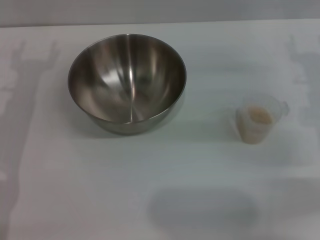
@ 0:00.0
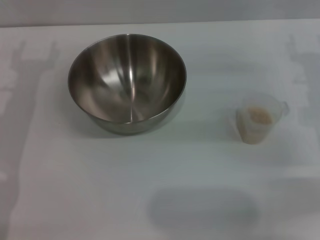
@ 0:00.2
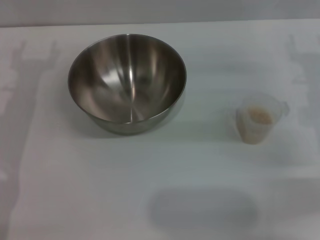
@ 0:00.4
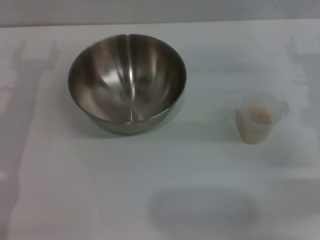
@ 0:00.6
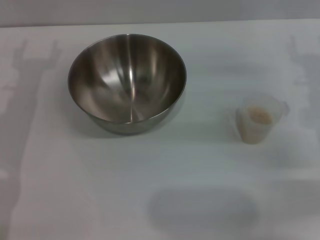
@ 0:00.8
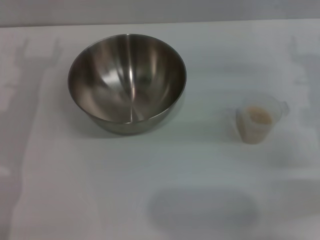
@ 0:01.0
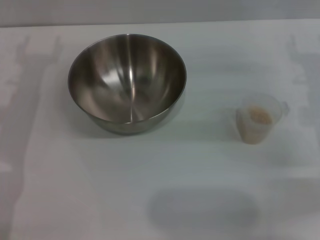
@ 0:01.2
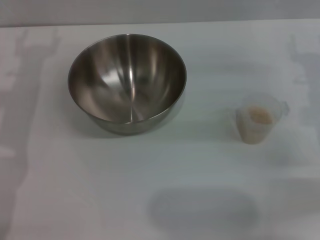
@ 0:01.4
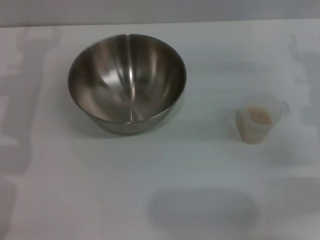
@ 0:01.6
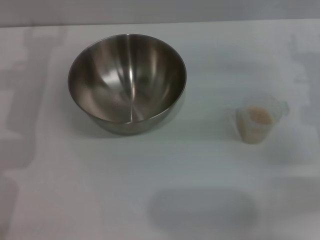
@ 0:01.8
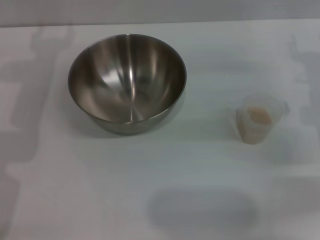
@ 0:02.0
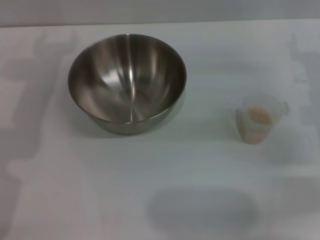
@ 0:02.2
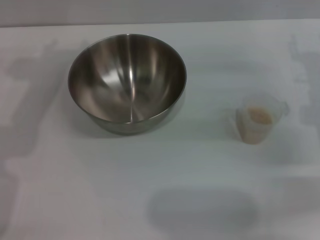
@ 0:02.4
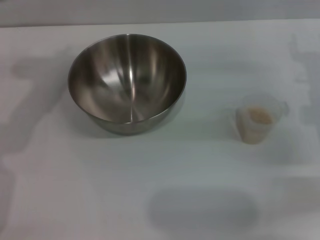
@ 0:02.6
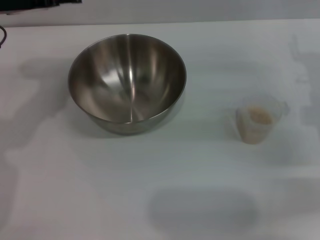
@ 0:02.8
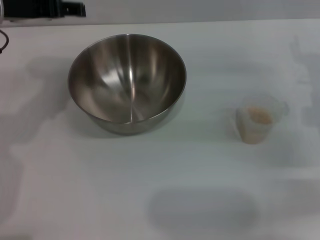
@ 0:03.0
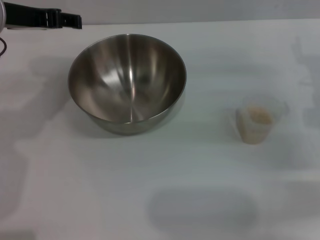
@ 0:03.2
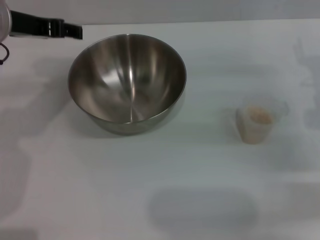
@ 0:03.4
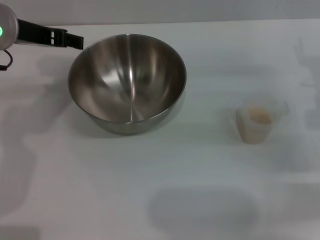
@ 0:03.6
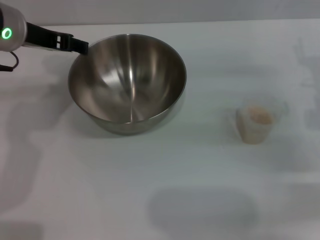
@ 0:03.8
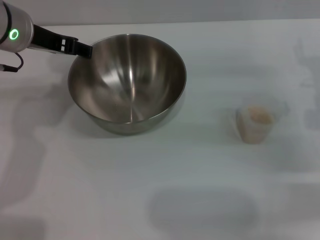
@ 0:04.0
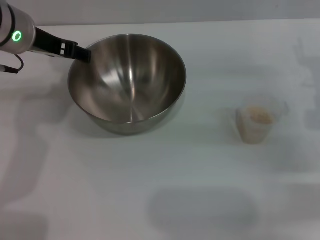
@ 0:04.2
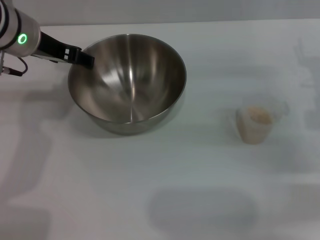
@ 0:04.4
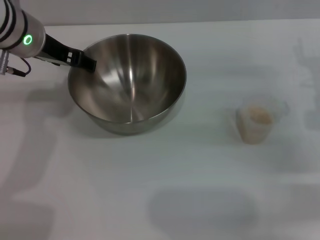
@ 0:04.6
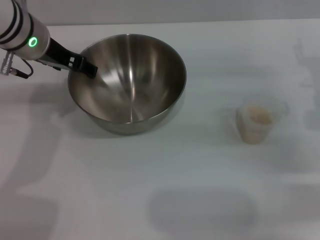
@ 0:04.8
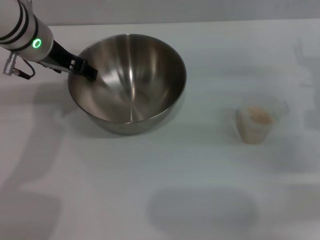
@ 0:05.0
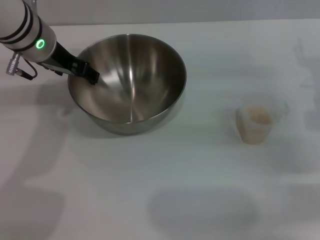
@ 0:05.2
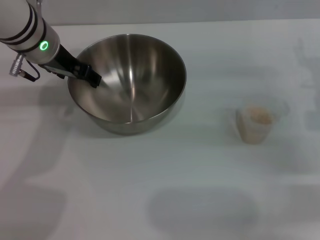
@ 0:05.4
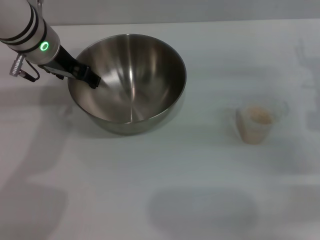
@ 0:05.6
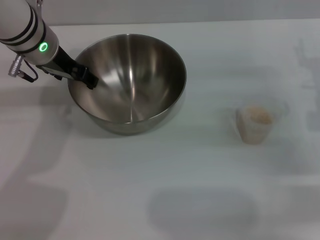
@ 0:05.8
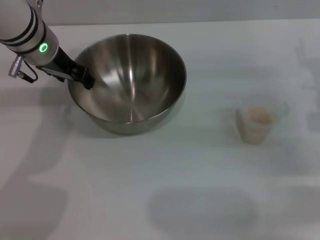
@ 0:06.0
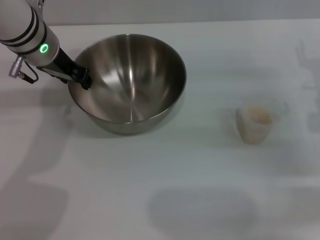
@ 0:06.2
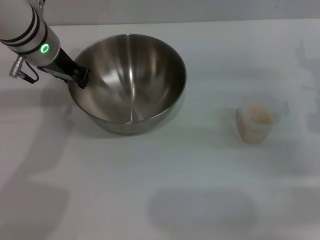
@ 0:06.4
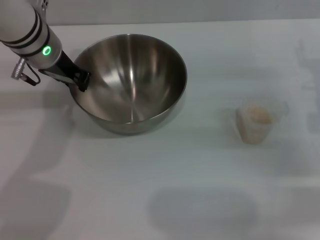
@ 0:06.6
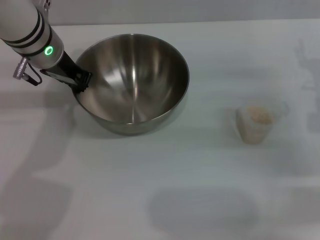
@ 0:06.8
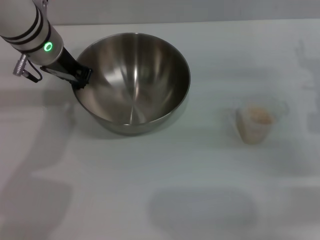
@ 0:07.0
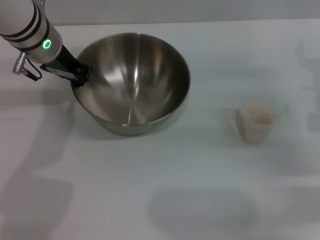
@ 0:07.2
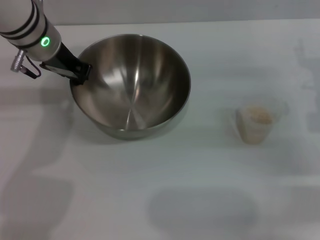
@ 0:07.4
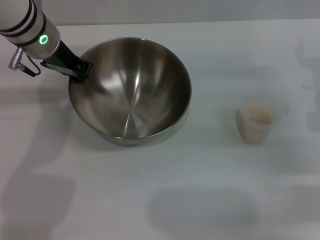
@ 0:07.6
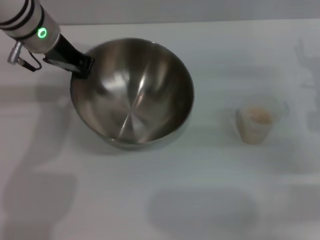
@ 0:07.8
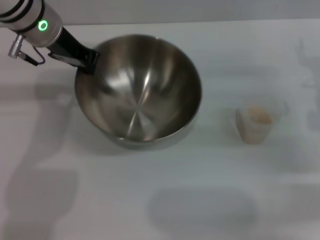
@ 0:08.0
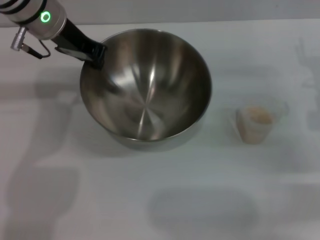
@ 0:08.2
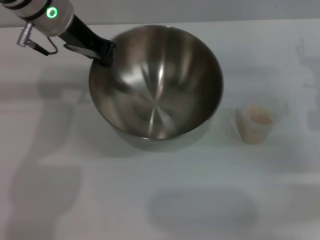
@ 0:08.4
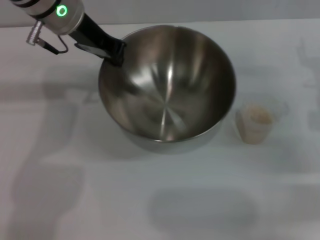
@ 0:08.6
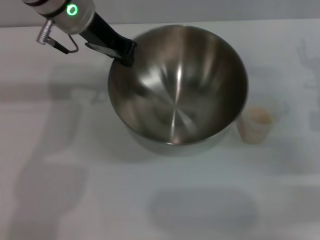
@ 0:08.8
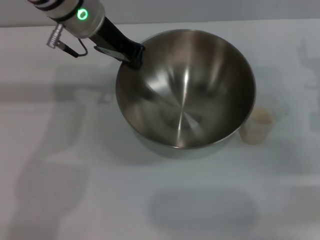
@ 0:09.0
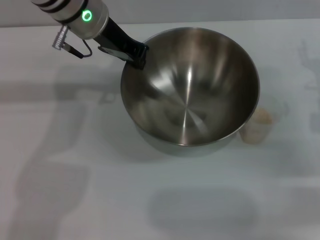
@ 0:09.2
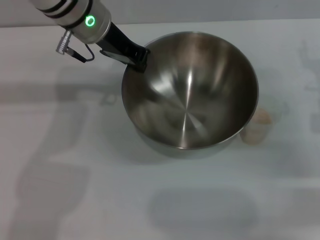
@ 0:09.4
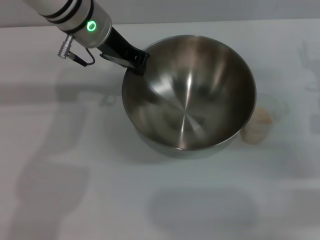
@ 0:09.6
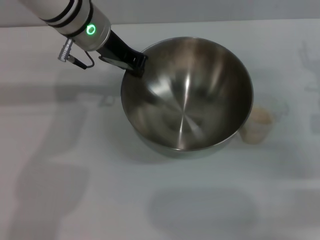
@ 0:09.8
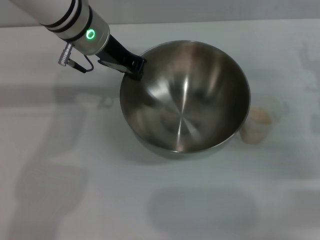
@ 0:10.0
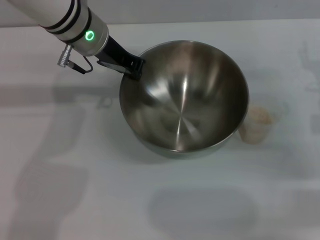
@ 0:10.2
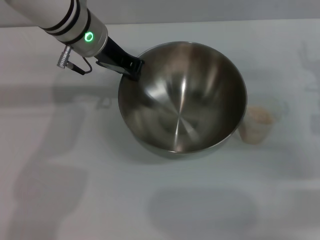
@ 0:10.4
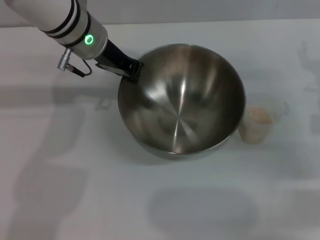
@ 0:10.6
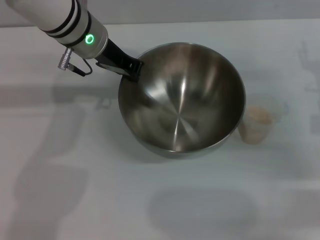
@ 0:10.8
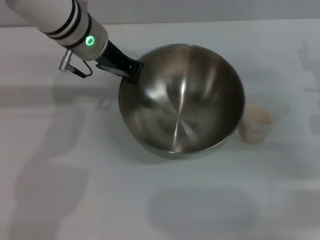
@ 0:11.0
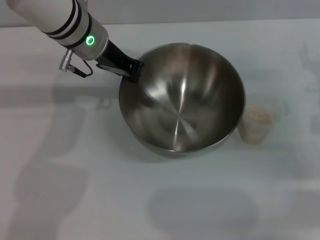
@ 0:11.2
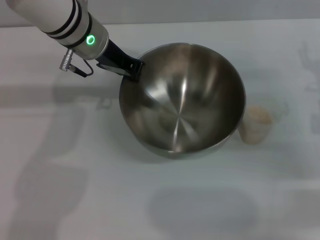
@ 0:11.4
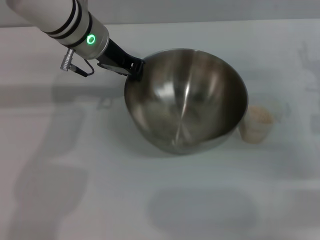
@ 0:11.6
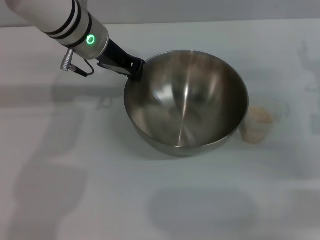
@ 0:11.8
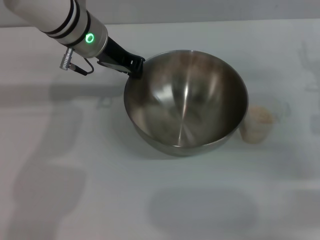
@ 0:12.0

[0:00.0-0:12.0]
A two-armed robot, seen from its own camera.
Task of the whole recording: Place the bowl in the middle of the table with one hand and pour the rice from the grain cup into it with the other hand.
Step, 0:00.0 to 0:08.0: Pick up the bowl with the left gripper.
0:01.6 to 0:03.0: The left gripper travels upward by roughly 10 cm.
0:03.0 to 0:04.4: The left gripper moves roughly 5 cm.
0:04.4 to 0:06.0: The grippers move only a little.
0:06.0 to 0:07.6: The left gripper closes its fingers.
0:07.6 to 0:09.0: The left gripper heads to the right, covering approximately 5 cm.
0:09.0 to 0:10.4: There are only small adjustments of the grippers.
0:10.4 to 0:12.0: The two grippers keep their place.

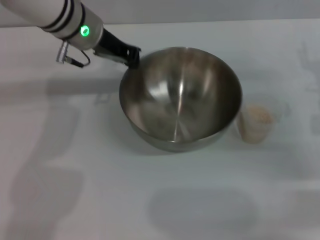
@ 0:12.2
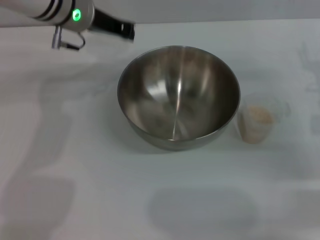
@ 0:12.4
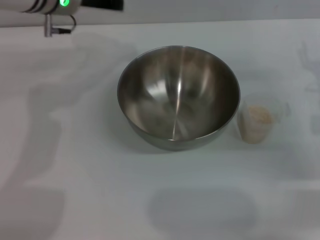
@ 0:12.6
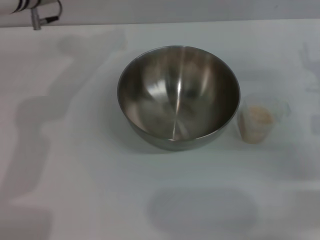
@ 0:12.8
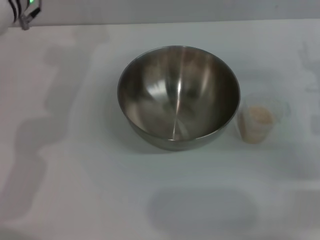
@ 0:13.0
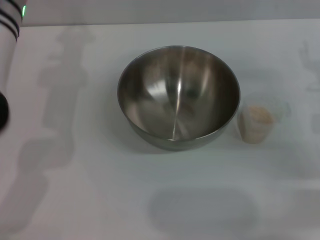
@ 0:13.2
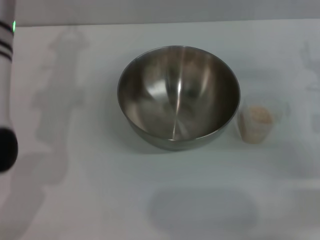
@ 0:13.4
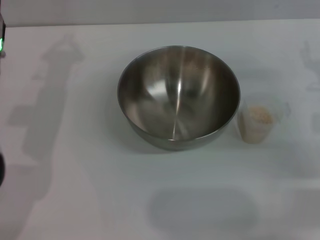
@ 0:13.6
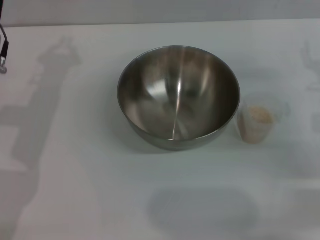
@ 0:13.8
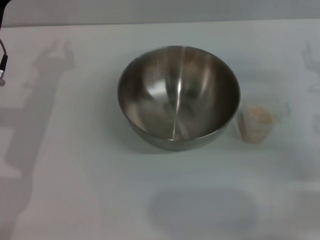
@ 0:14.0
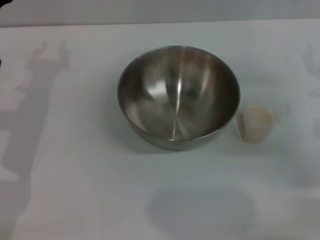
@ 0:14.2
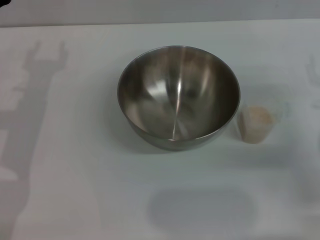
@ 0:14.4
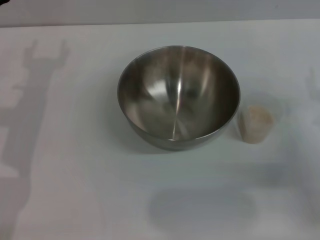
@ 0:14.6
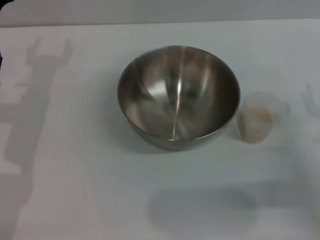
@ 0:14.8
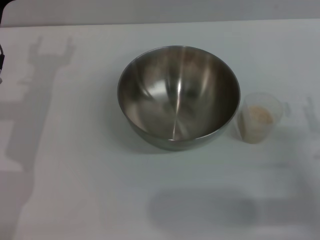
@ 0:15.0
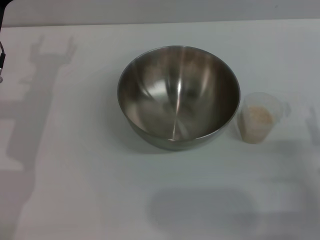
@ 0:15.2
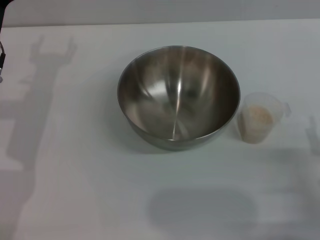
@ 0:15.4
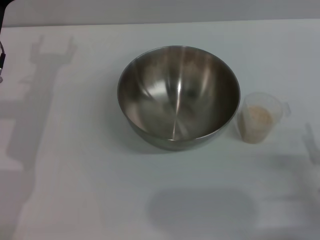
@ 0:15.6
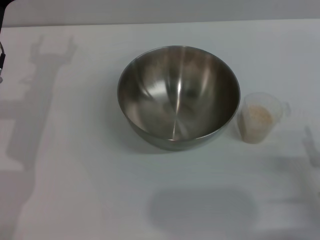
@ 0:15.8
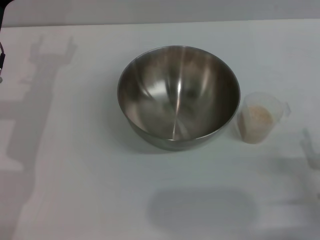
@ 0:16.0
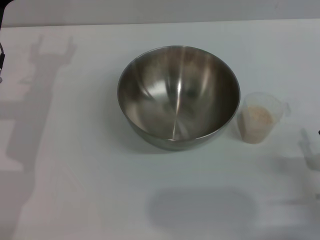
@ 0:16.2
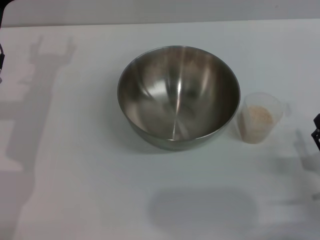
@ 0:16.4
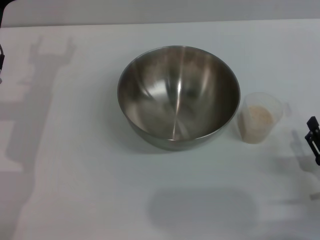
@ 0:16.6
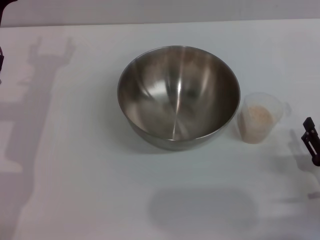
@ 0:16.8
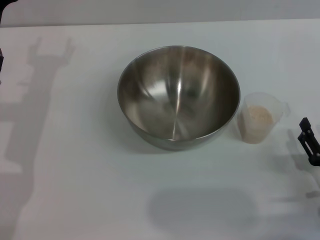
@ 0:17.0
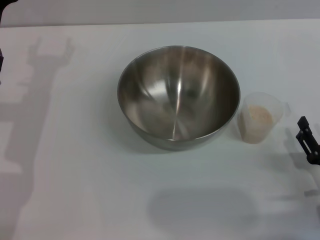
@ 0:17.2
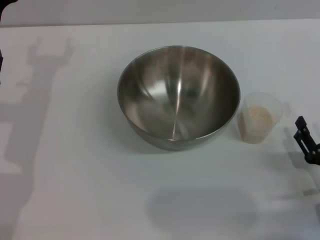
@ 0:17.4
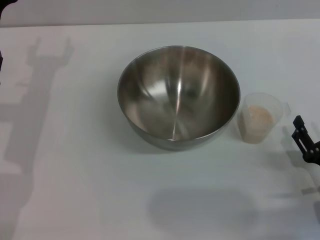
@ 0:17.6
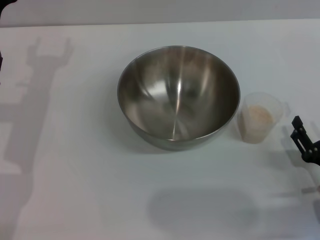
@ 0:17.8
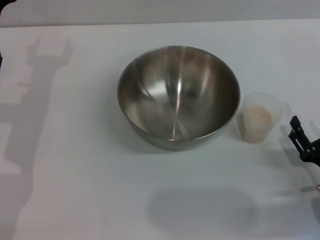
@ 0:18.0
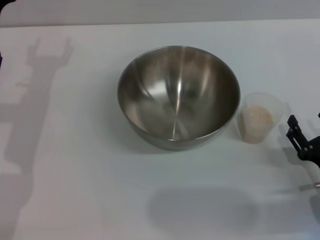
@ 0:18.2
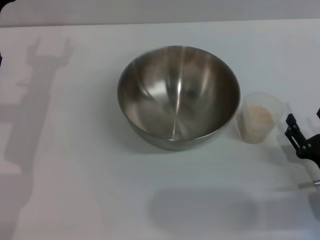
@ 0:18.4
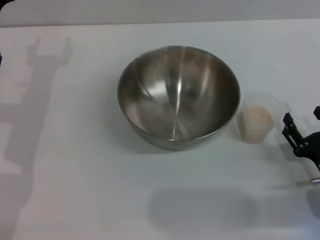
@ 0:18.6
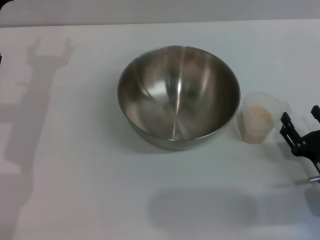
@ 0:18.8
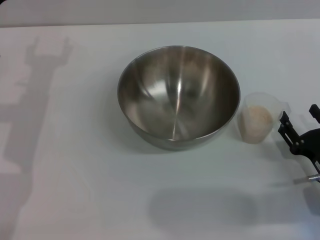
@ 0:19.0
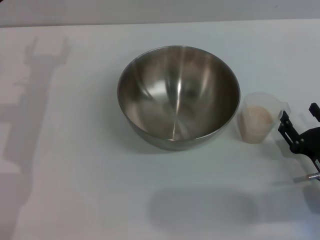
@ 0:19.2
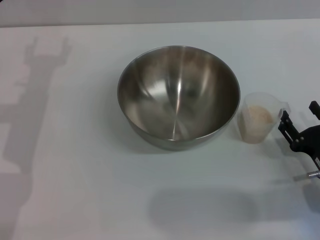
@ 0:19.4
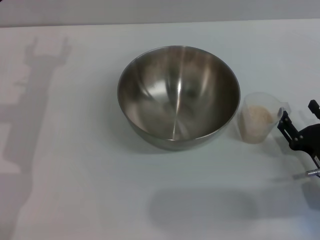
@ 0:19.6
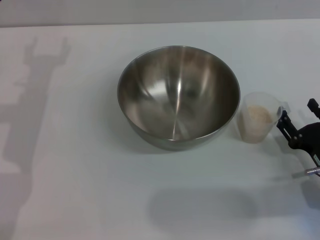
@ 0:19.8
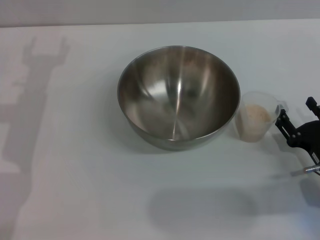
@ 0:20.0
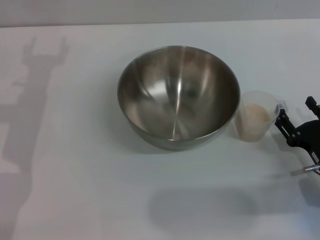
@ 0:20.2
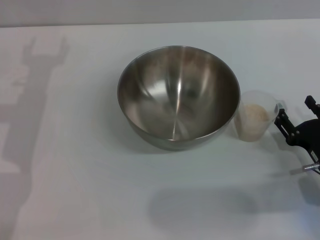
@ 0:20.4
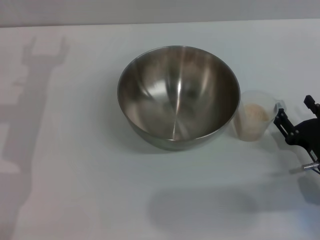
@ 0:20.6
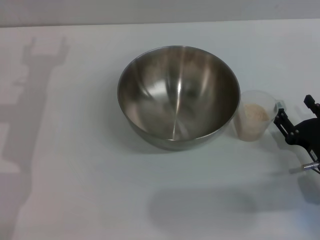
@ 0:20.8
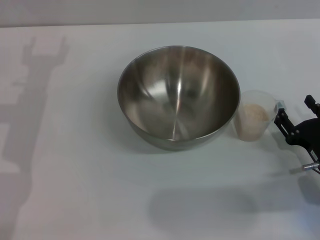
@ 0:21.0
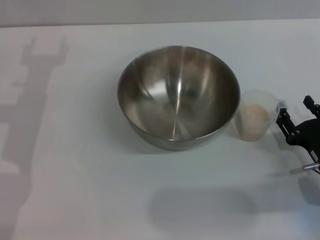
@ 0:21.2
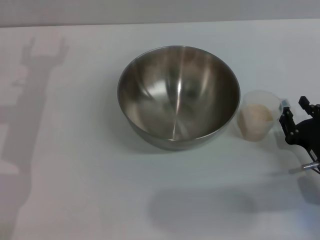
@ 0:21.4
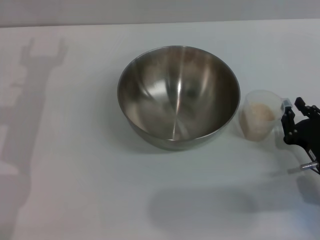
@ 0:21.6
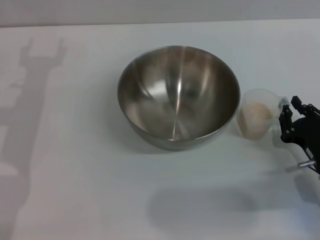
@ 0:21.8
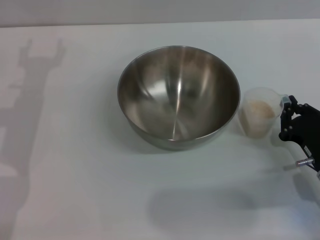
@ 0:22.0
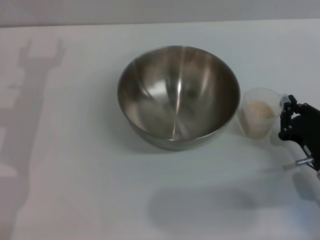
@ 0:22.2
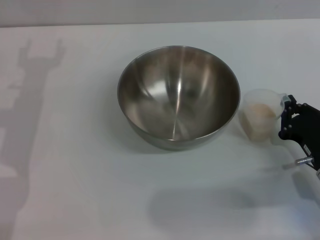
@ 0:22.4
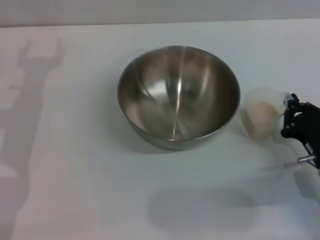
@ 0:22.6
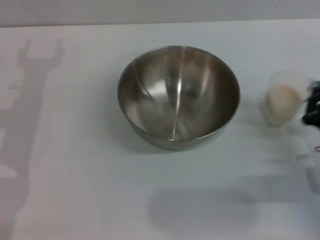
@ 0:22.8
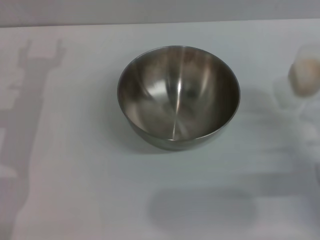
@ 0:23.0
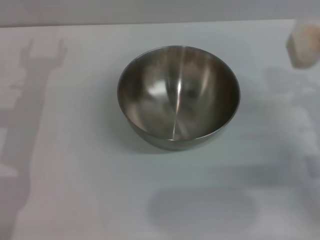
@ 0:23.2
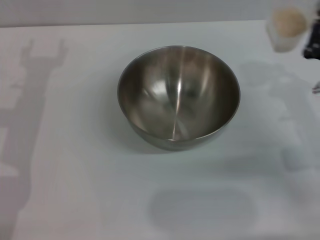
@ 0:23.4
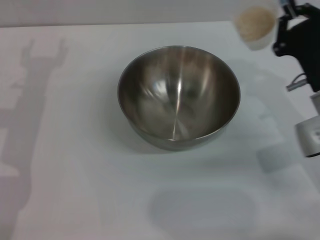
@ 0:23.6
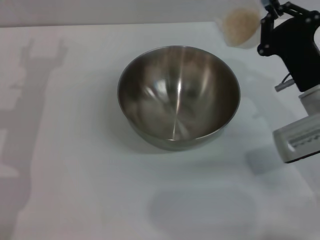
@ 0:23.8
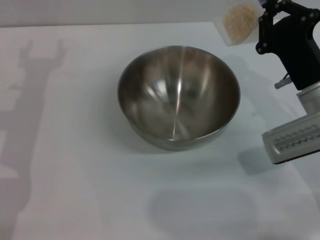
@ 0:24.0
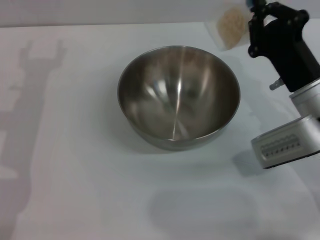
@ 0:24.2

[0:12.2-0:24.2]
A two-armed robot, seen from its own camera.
Task of the whole recording: Place the bowl in the middle of the table with one hand and pour the rice from the grain cup into it with the other hand.
Step, 0:12.6 to 0:23.0: Pick up the cup with rice in it with the right gripper.
0:12.2 to 0:13.8: The left gripper travels to the left, backward and downward by some 15 cm.
0:15.2 to 0:16.6: The grippers make only small movements.
0:16.6 to 0:19.8: The grippers move only a little.
0:19.8 to 0:21.2: The two grippers keep their place.
0:21.2 to 0:22.6: The right gripper closes its fingers.
0:22.6 to 0:24.2: The right gripper goes approximately 15 cm upward, forward and to the left.
